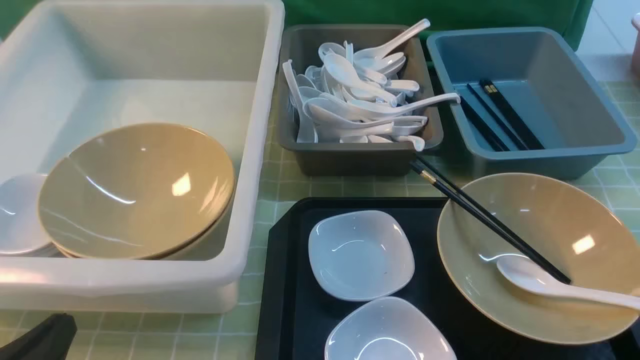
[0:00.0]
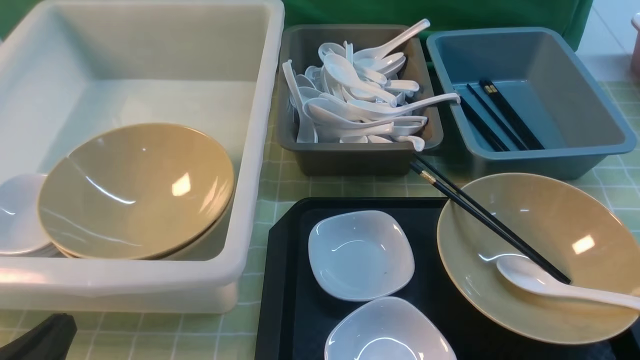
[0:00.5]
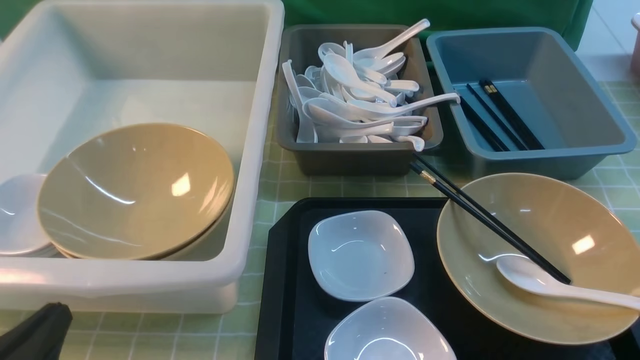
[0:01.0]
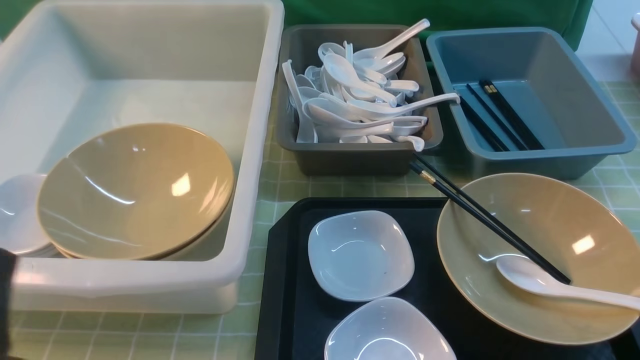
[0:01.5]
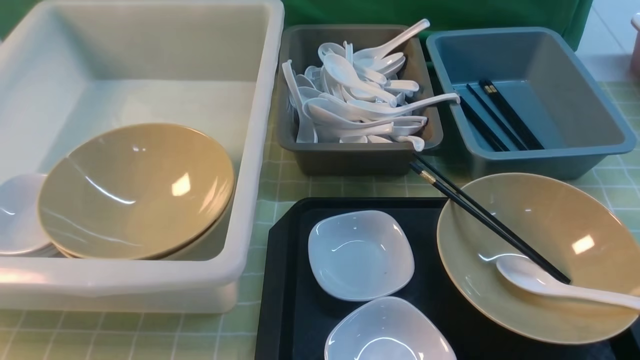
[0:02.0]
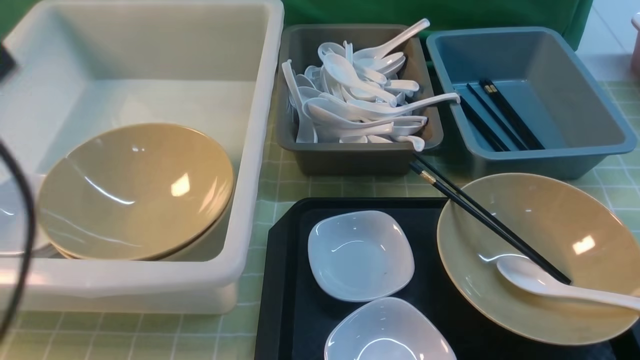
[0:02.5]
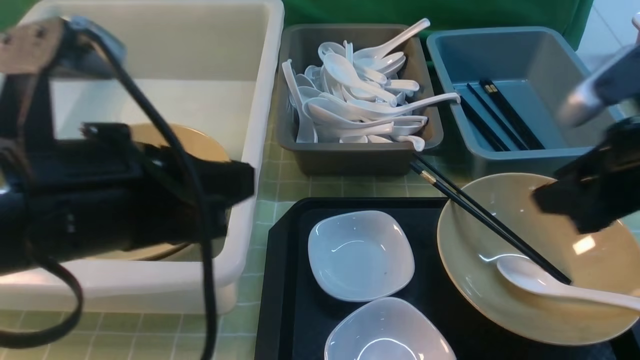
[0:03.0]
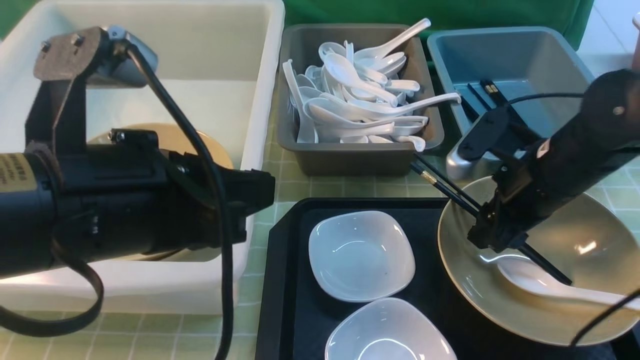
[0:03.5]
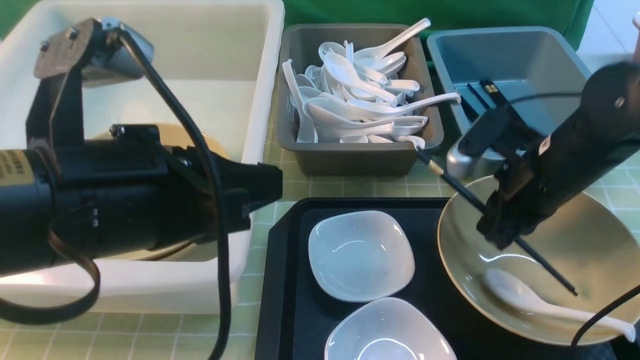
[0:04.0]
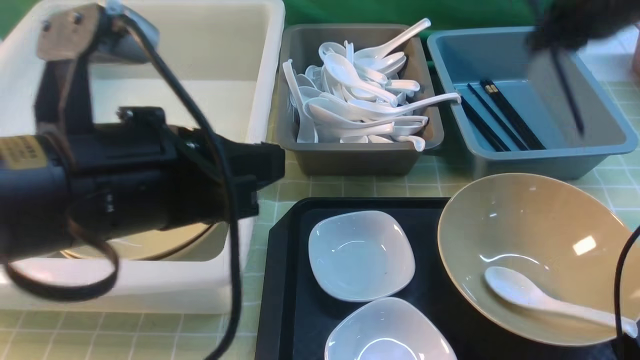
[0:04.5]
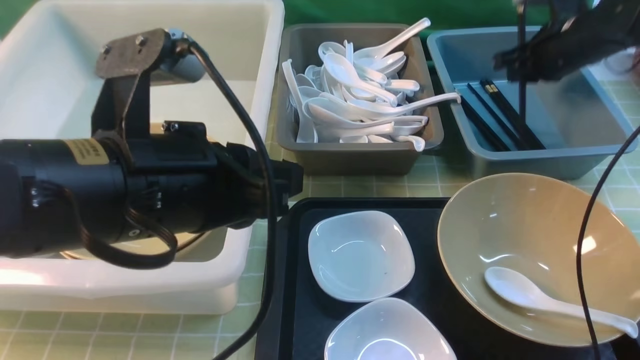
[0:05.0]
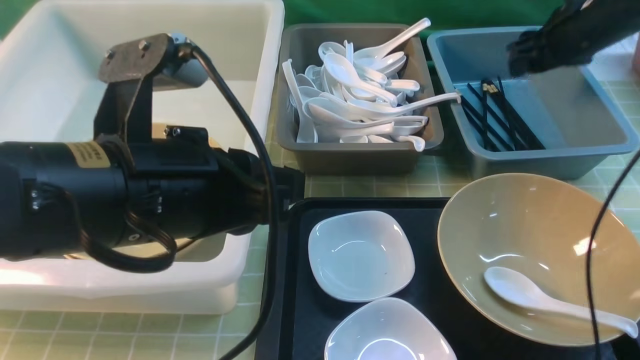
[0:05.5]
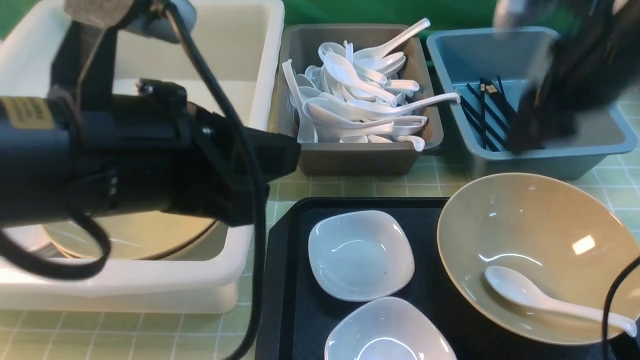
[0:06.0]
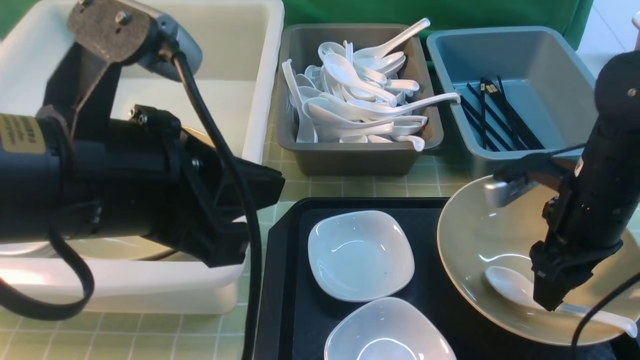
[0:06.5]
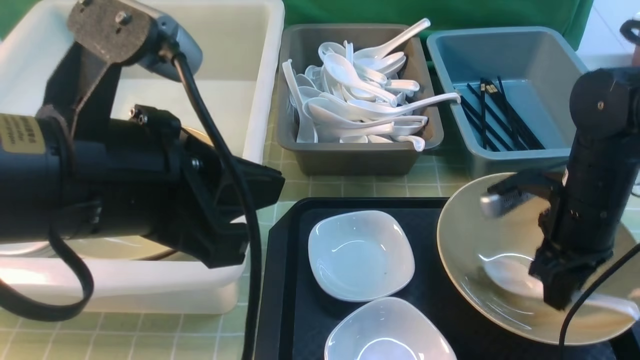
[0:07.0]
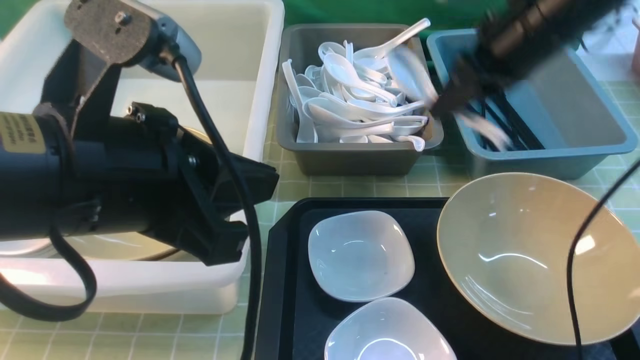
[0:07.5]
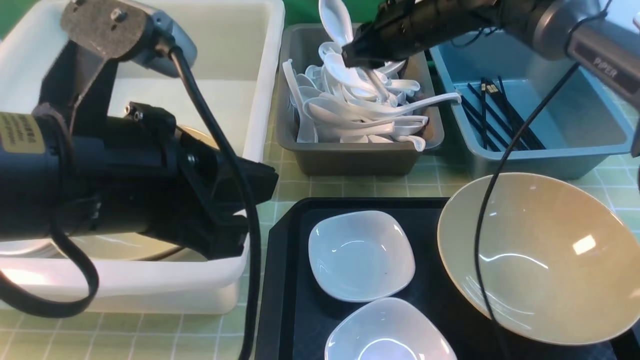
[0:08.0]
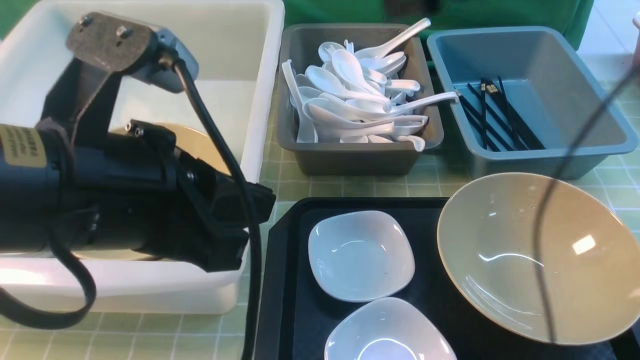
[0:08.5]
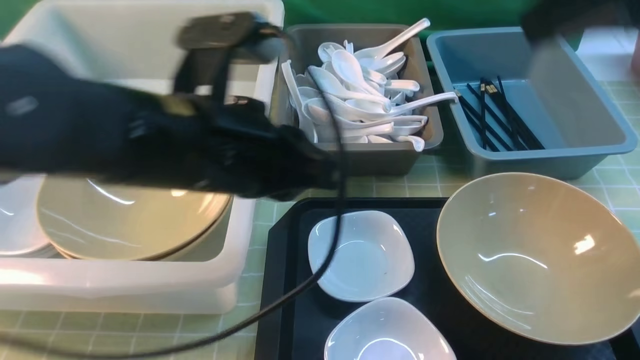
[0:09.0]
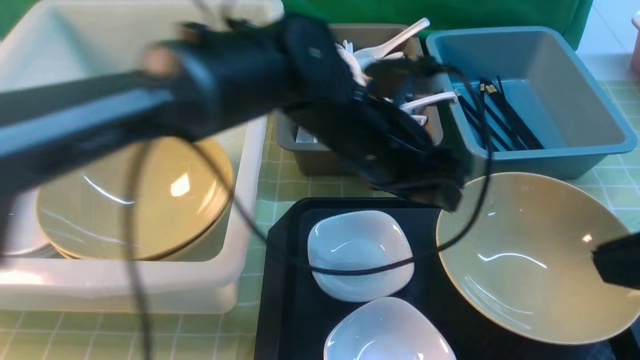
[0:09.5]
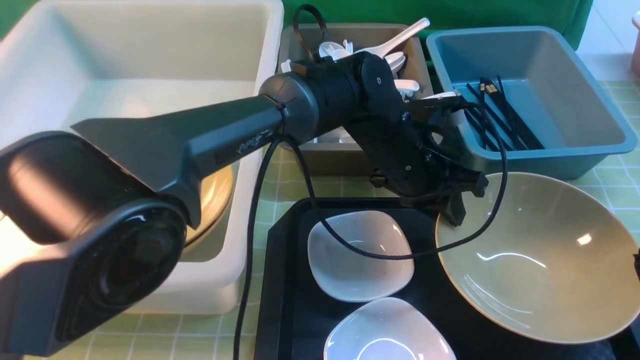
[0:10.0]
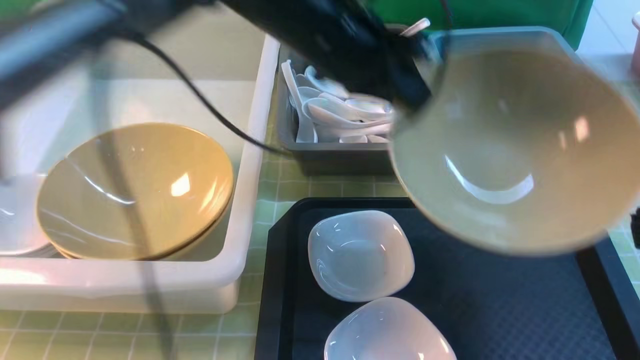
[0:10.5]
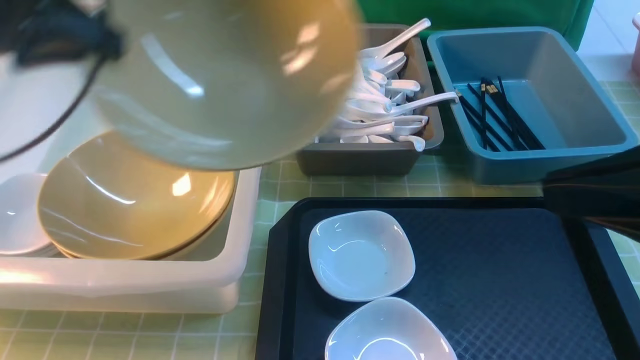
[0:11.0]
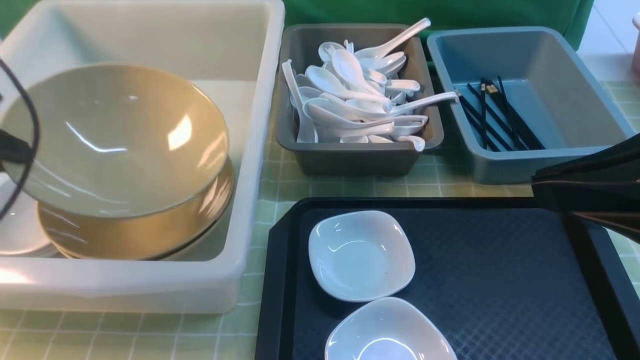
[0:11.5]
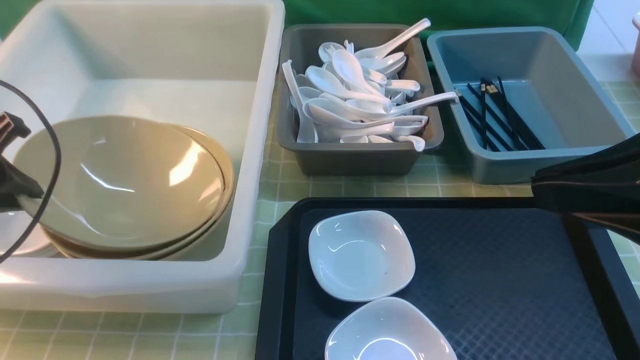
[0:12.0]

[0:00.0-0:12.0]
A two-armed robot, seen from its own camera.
Task of the whole recording: on green table put chopsticks spoon bowls plates into blue grey white boxes.
Step, 0.0 to 4.0 s: use the right arm to grab the chopsticks.
Step, 4.5 to 5.5 s: use the right arm to put the chopsticks into the small storage box on the right.
Step, 6.0 to 7.0 s: use the right arm to grab the soup spoon in the middle.
Step, 7.5 to 8.5 s: use the right arm to put the soup spoon into the small storage box in the middle.
Step, 9.0 to 10.5 s: use the left arm to grab the yellow noodle bowl on the left.
0.0 to 2.0 s: The left gripper shifts some 15 cm upward.
2.0 to 4.0 s: The left gripper heads to the right and forward, covering some 15 cm; the right gripper is displaced forward and downward by approximately 30 cm, and closes its fingers.
4.0 to 6.0 s: The right gripper moves upward, about 10 cm, moves some 15 cm forward and comes back, and opens.
6.0 to 8.0 s: The right gripper travels forward and to the left by approximately 20 cm, and closes.
8.0 to 10.0 s: The left gripper shifts roughly 35 cm forward, to the right and downward, and opens and closes again. Meanwhile the right gripper shifts approximately 40 cm backward, and closes.
10.0 to 12.0 s: The right gripper moves forward, roughly 5 cm; the left gripper heads to the left, covering roughly 40 cm.

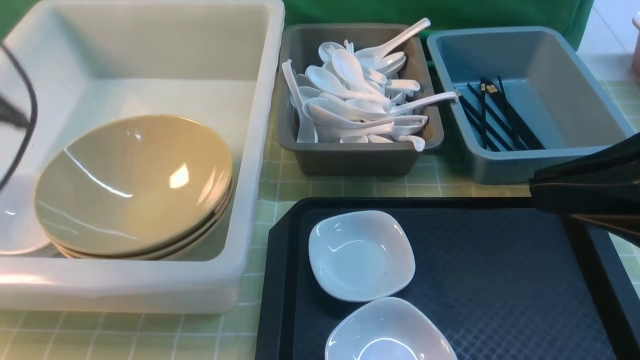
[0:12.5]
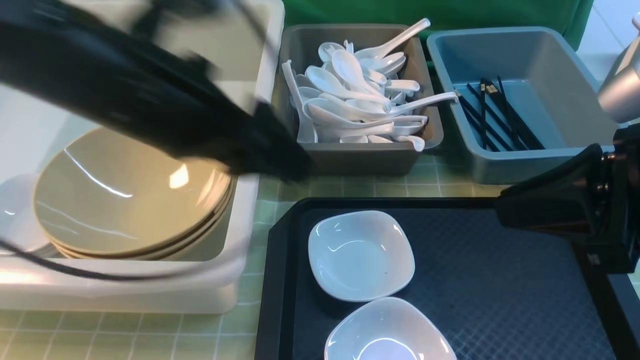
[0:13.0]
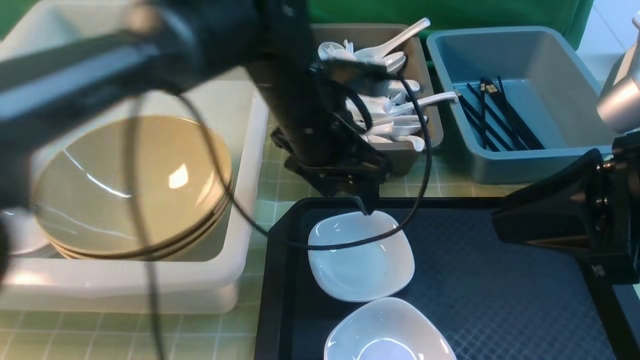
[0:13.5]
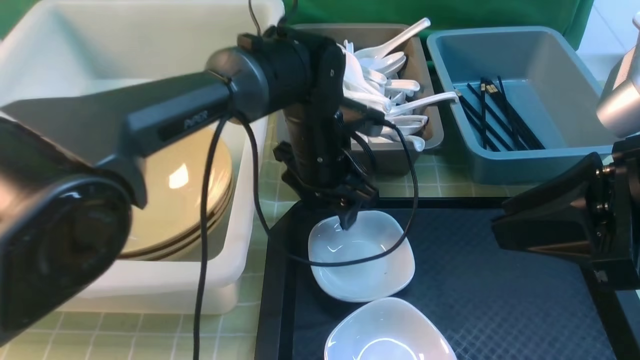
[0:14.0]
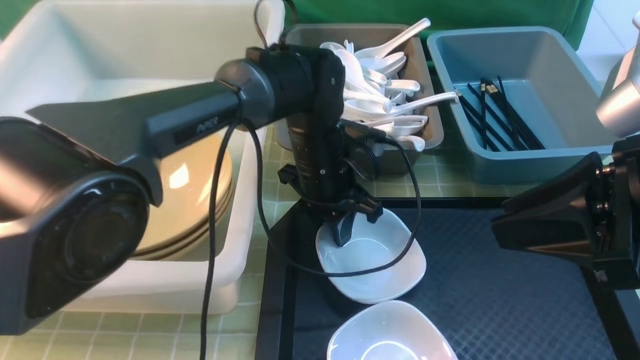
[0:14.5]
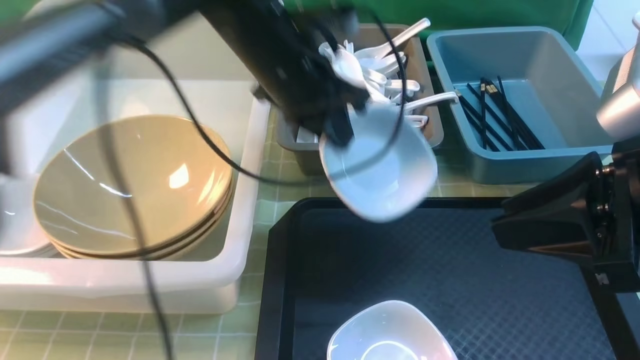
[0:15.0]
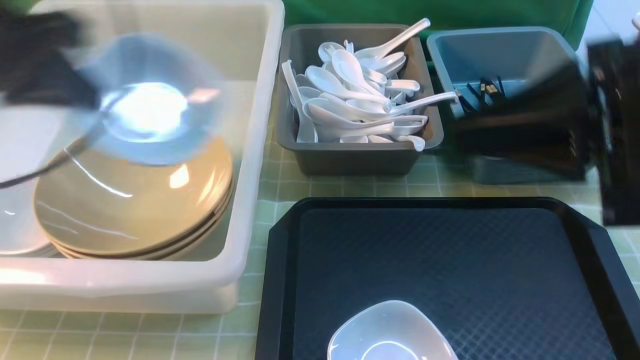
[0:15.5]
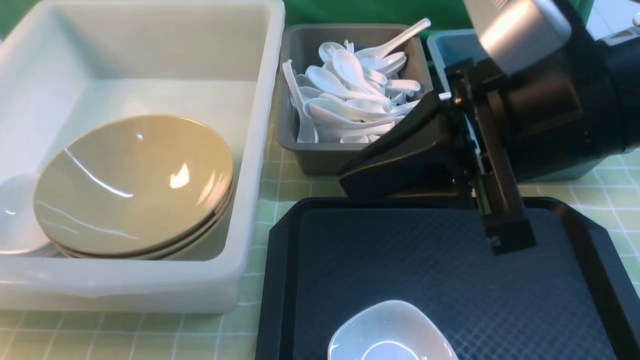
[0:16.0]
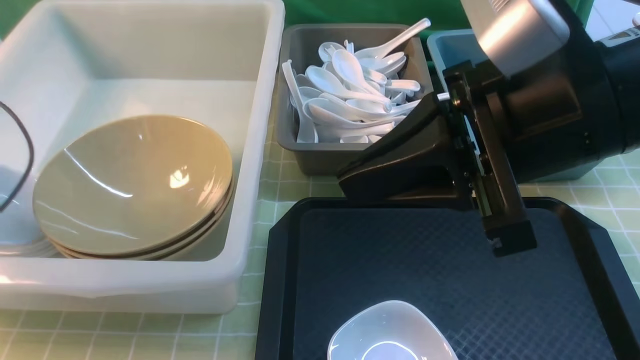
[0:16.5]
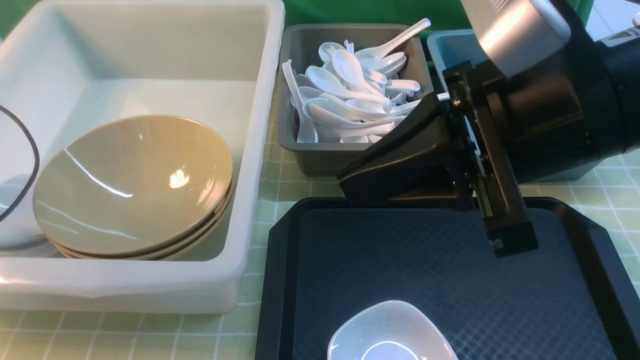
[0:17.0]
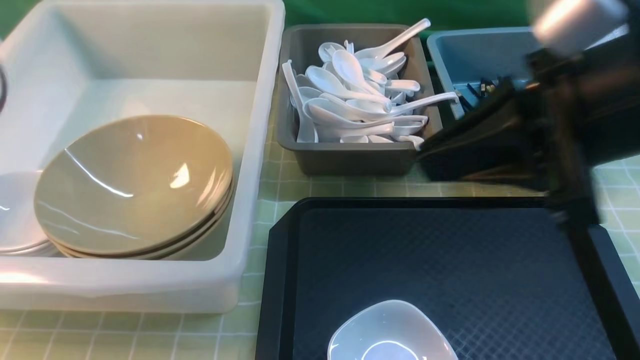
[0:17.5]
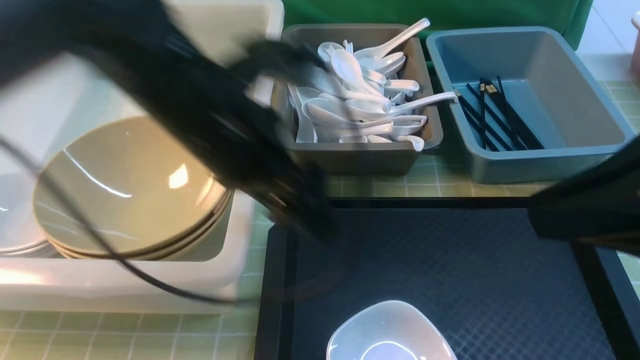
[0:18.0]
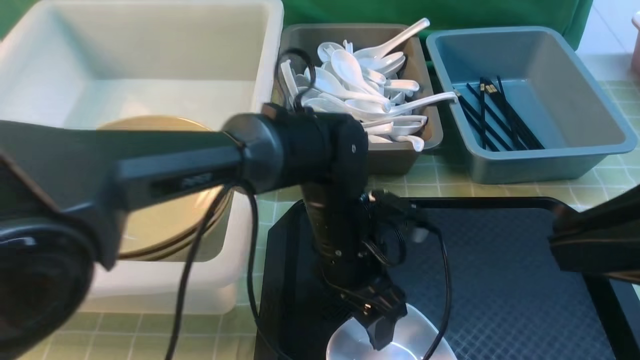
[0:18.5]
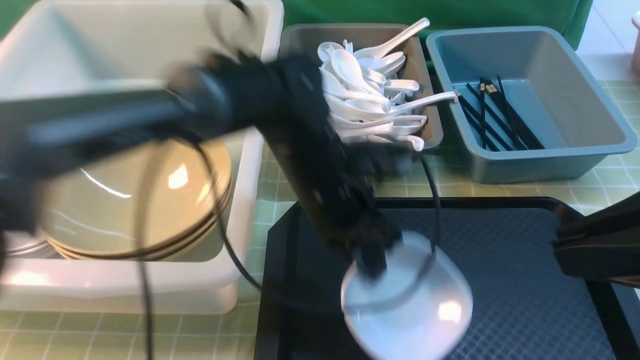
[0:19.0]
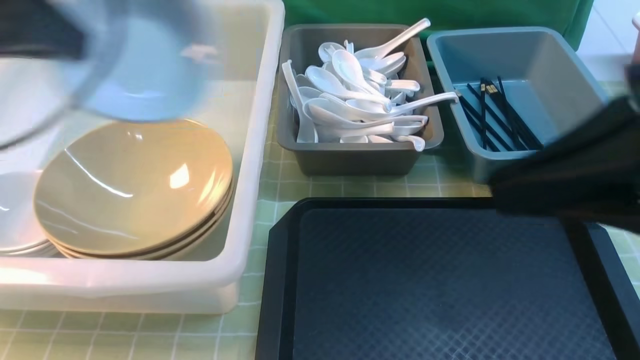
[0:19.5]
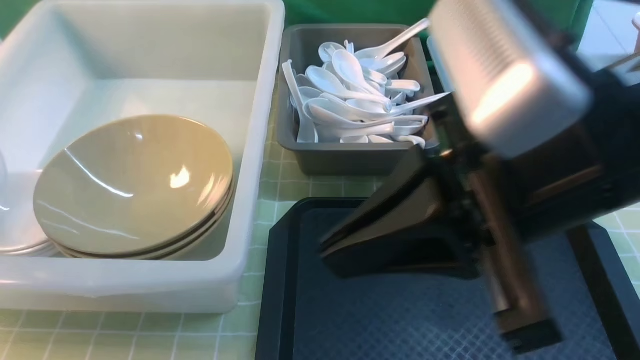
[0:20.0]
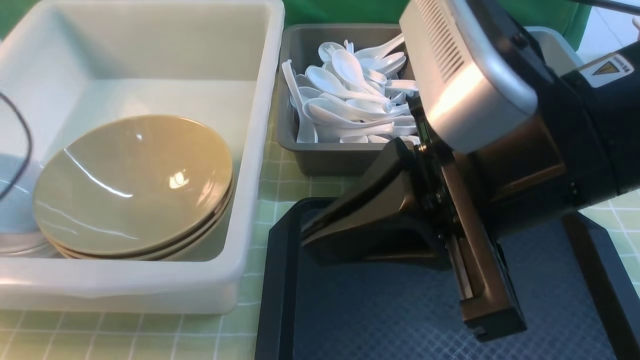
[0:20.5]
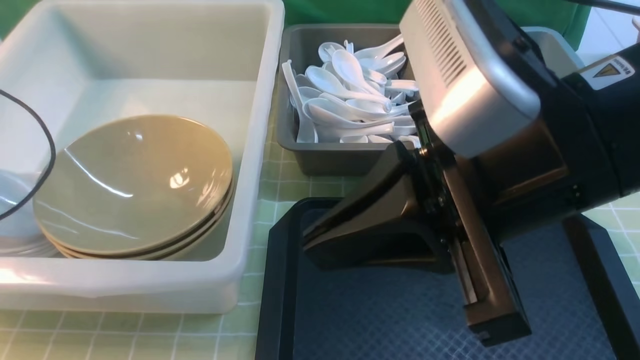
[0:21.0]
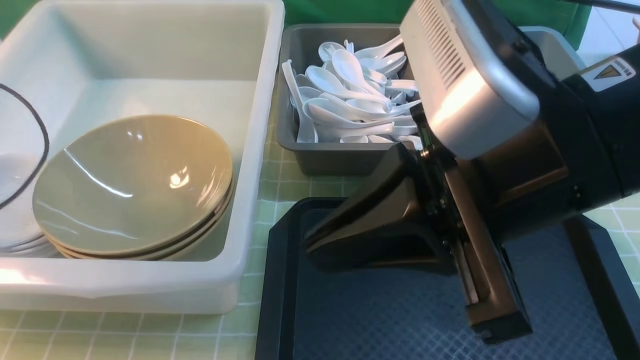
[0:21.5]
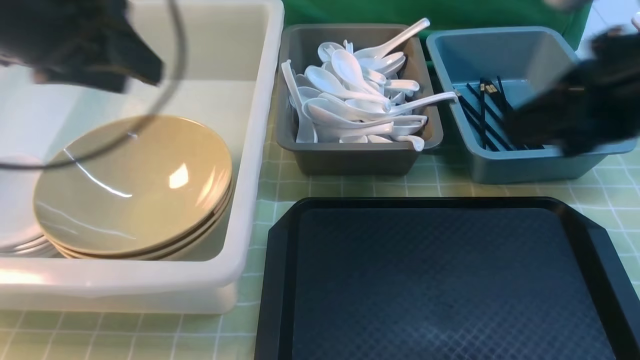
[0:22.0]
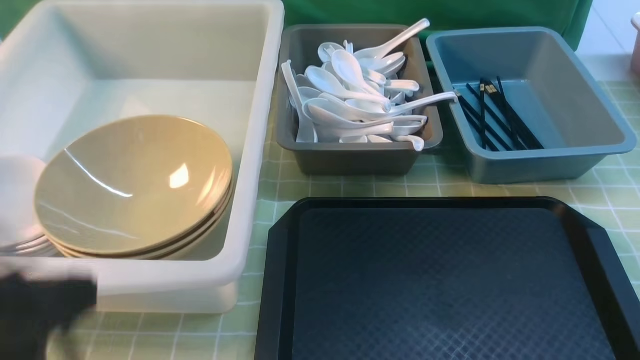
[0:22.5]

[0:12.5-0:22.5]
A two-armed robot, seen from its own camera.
Task of the whole recording: on green table put chopsticks spoon bowls plates into blue grey white boxes.
Step, 12.5 to 14.5 s: use the left arm to grab the plate.
Step, 15.0 to 17.0 s: use the left arm to put the plate into the large storage box on the left.
Step, 17.5 to 19.0 s: use the left arm to grab the plate.
Step, 19.5 to 21.5 s: use the left arm to put the plate into the large storage box on the left.
12.5 to 14.5 s: The right gripper opens up. Meanwhile the left gripper is displaced to the right, downward and forward by about 35 cm, and closes its fingers.
14.5 to 16.5 s: The left gripper goes about 40 cm to the left; the right gripper goes roughly 10 cm to the left, and closes up.
16.5 to 18.5 s: The left gripper goes some 40 cm to the right, and opens; the right gripper is displaced to the right and backward by some 15 cm.
18.5 to 20.5 s: The right gripper moves to the left, roughly 10 cm. The left gripper moves to the left, about 40 cm, and closes.
20.5 to 22.5 s: The left gripper travels backward and to the right by about 30 cm, and opens, then closes once more; the right gripper is displaced to the right and backward by some 20 cm.
